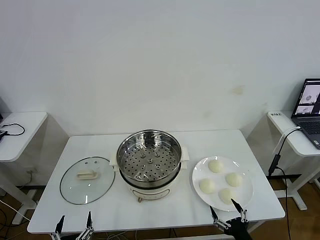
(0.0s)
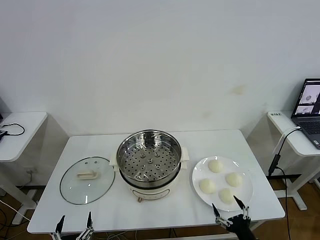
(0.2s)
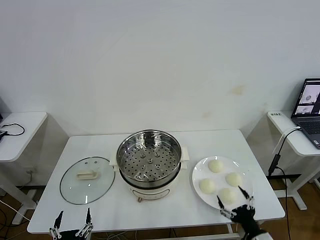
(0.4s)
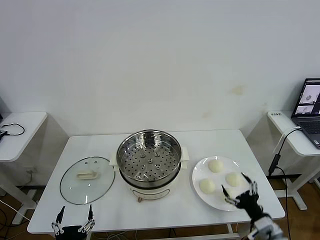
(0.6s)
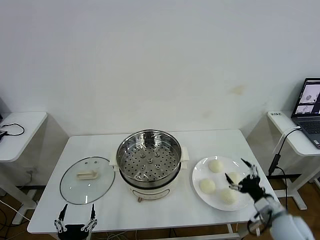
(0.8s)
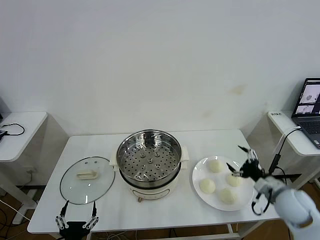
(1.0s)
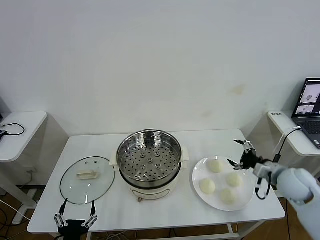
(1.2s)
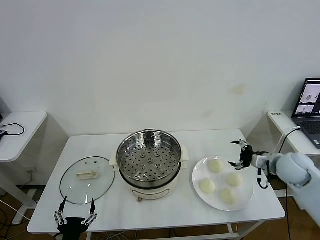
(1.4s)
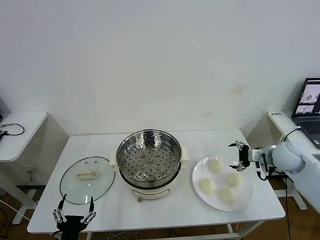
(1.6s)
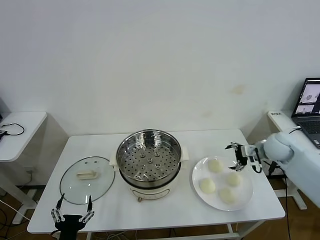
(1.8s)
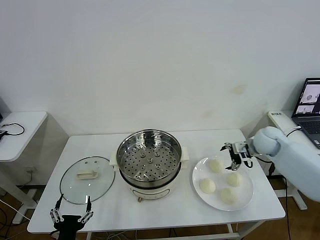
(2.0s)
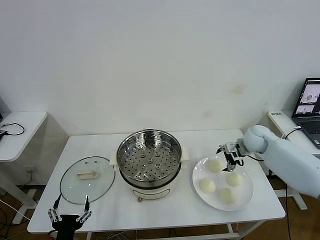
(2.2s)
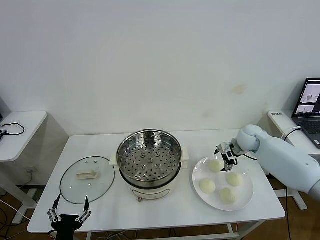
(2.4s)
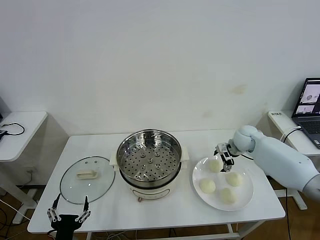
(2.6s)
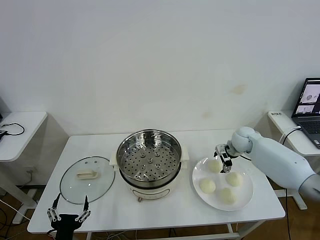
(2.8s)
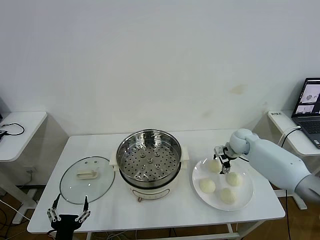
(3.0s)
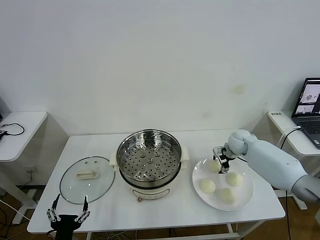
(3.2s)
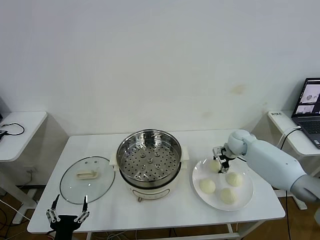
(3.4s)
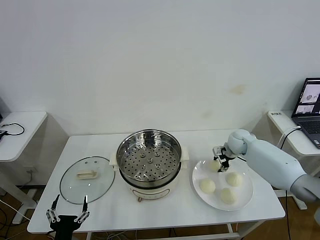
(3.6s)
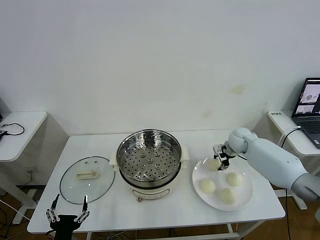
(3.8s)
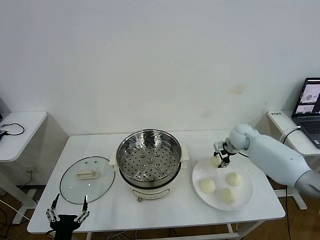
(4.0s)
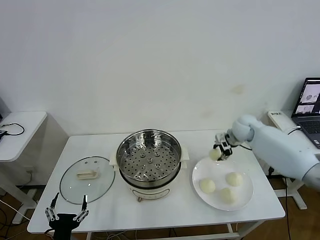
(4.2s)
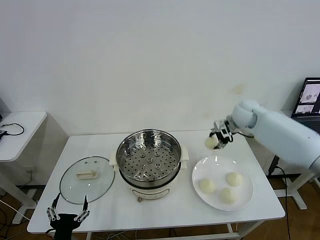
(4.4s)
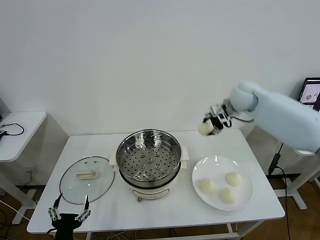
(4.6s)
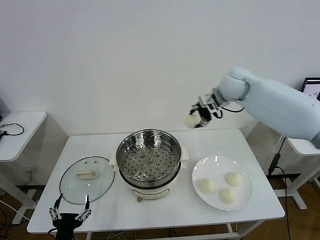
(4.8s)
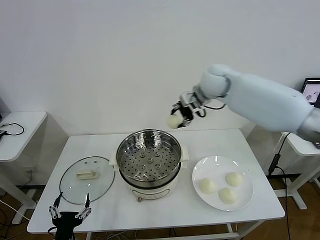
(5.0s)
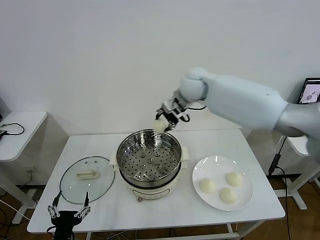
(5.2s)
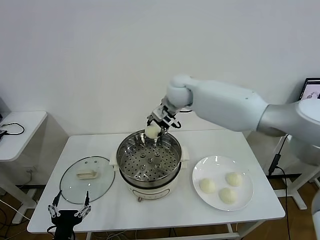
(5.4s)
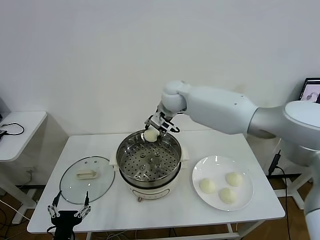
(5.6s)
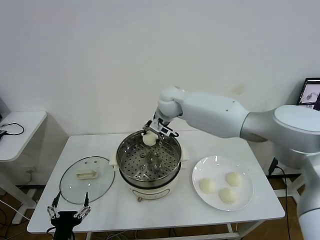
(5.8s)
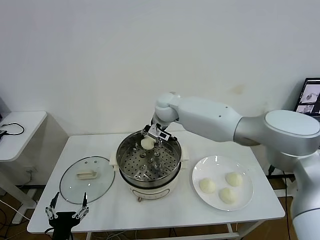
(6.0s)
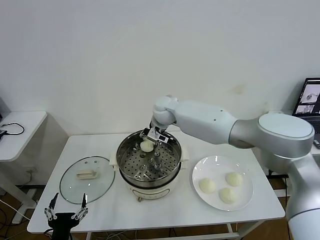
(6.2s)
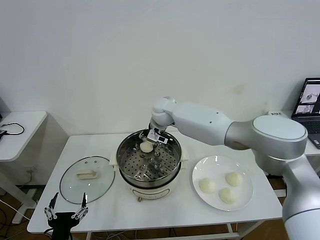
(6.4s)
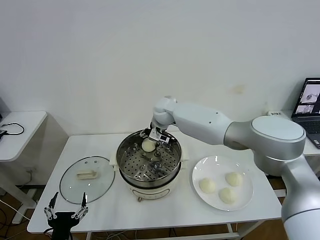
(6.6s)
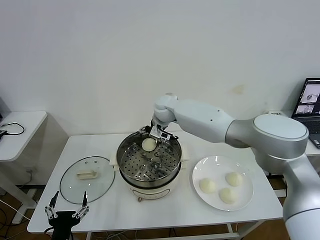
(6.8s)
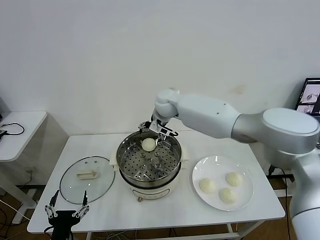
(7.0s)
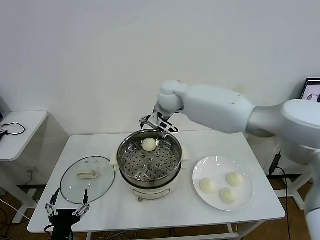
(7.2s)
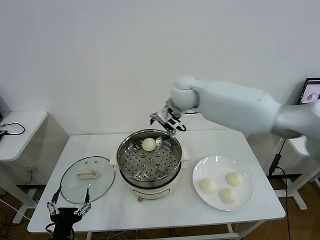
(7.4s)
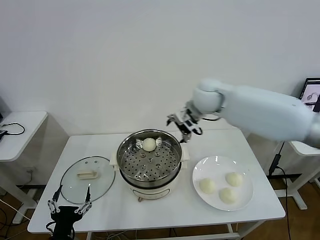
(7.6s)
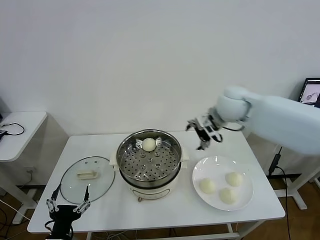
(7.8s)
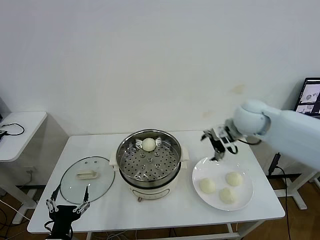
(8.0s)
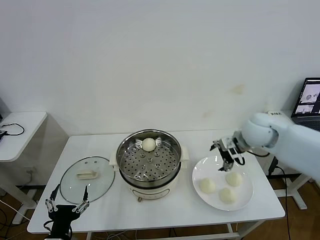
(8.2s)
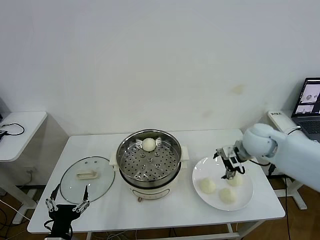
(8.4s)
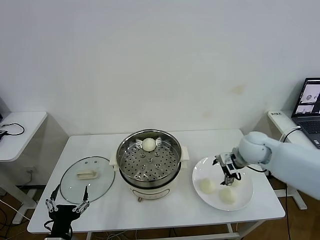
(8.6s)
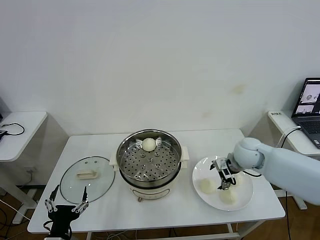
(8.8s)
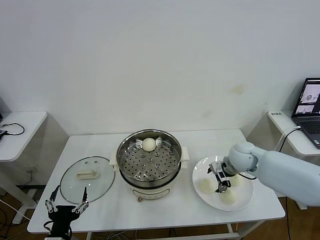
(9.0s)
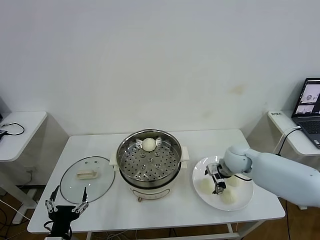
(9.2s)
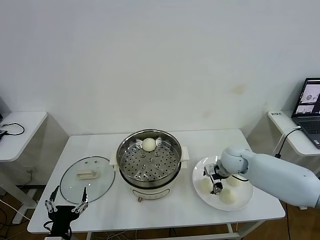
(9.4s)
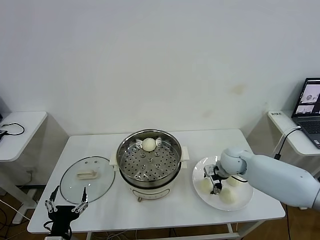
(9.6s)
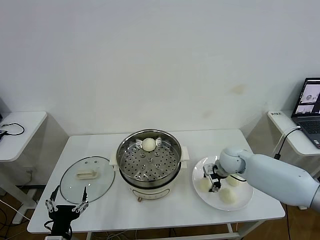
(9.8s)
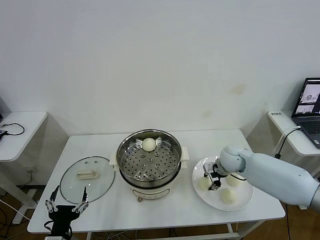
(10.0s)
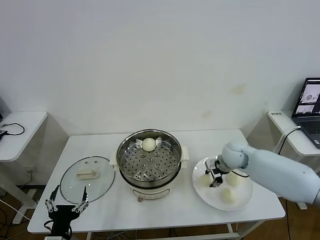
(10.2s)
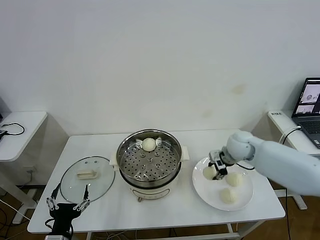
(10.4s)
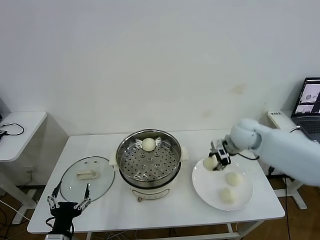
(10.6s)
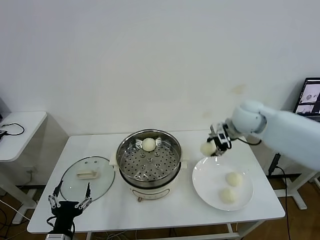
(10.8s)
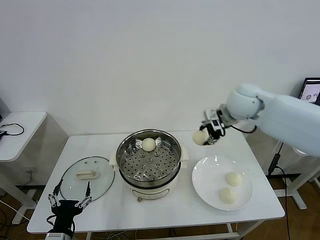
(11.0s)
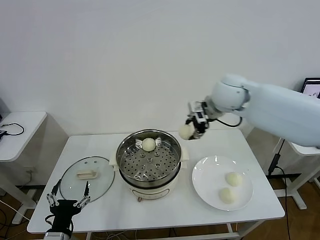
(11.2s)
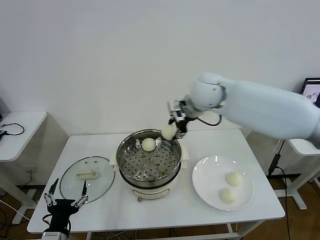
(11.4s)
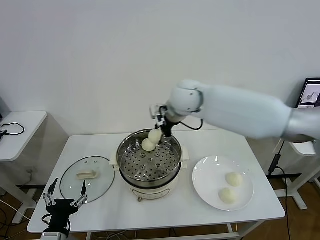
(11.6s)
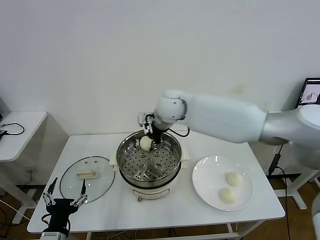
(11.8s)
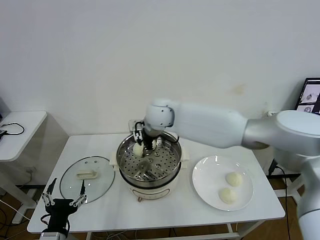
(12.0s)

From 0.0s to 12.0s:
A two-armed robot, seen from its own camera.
Task of the whole recording: take steamed baozi put them in steamer then cover it.
Step, from 0.0s to 3.4s: Grasp the baozi in the plate with right gripper.
Step, from 3.6s to 6.6s: Place the baozi on the steamer with right gripper.
Step, from 7.0s to 9.8s: Grasp the baozi in the plate with right gripper.
From 1.6s to 3.0s: The right gripper goes some 15 cm forward, to the left and downward.
From 3.0s to 4.4s: The right gripper moves upward, approximately 20 cm, and closes its fingers.
From 4.4s to 6.0s: The right gripper is displaced to the left by some 25 cm.
From 6.0s to 7.6s: The right gripper heads to the right, upward and backward, covering approximately 20 cm, and opens.
From 7.6s to 9.0s: The right gripper shifts about 20 cm downward and to the right.
From 9.0s to 10.4s: The right gripper shifts by about 5 cm, and closes.
From 10.4s to 12.0s: The right gripper shifts about 30 cm to the left.

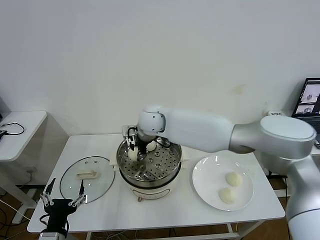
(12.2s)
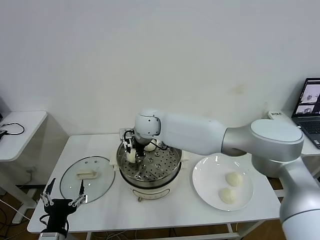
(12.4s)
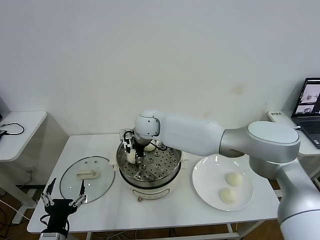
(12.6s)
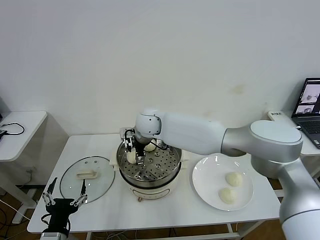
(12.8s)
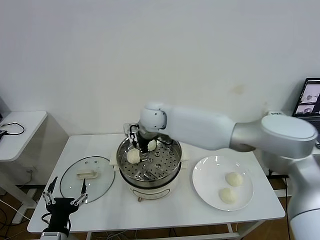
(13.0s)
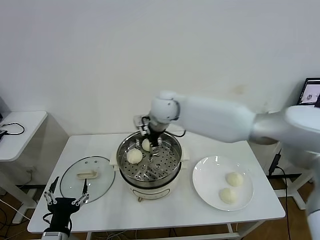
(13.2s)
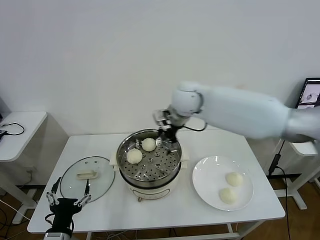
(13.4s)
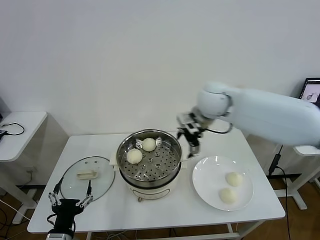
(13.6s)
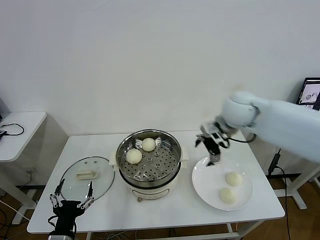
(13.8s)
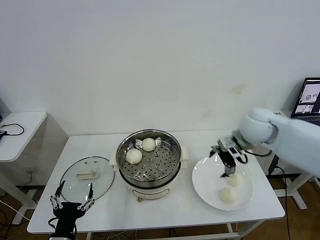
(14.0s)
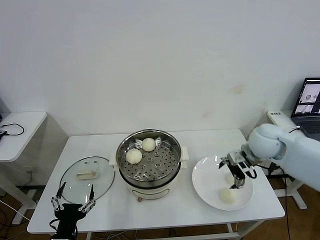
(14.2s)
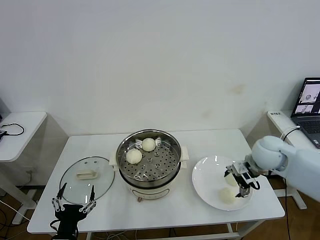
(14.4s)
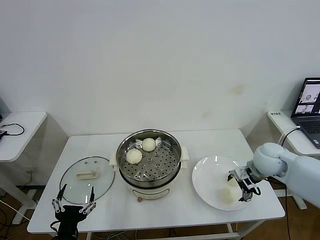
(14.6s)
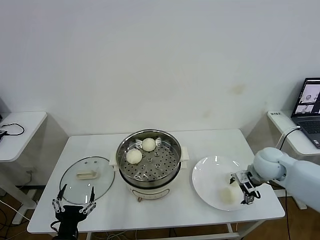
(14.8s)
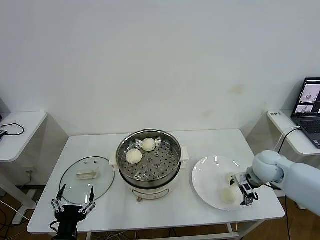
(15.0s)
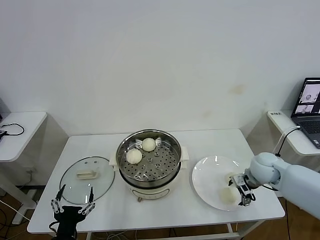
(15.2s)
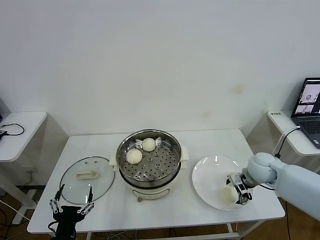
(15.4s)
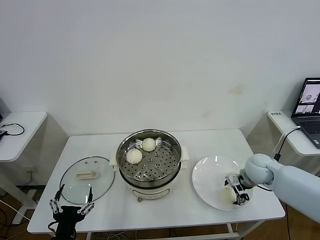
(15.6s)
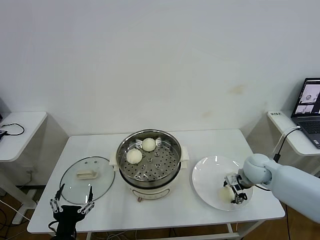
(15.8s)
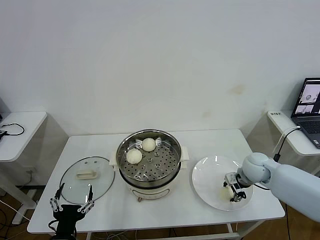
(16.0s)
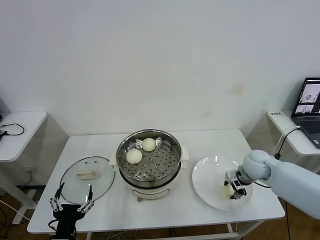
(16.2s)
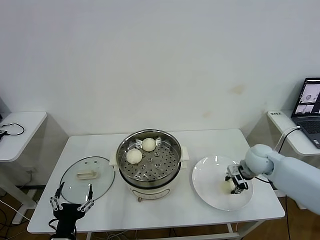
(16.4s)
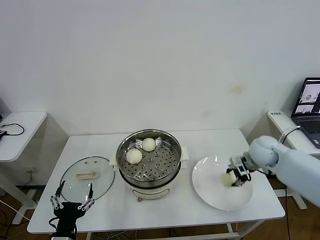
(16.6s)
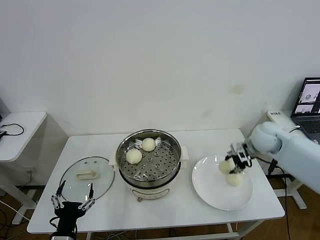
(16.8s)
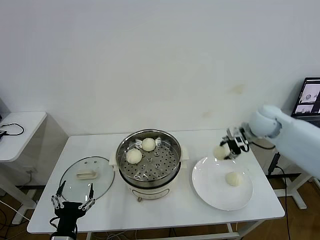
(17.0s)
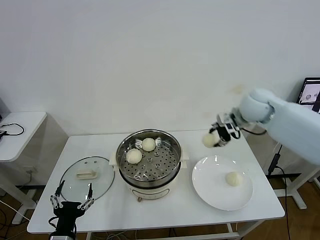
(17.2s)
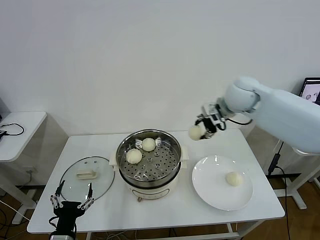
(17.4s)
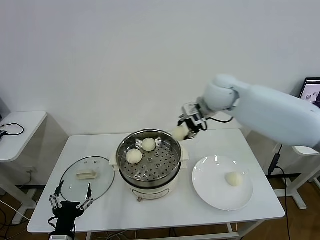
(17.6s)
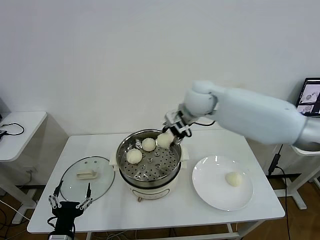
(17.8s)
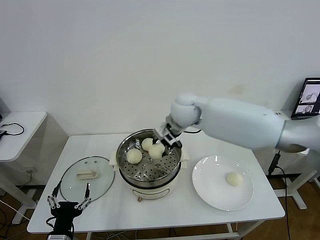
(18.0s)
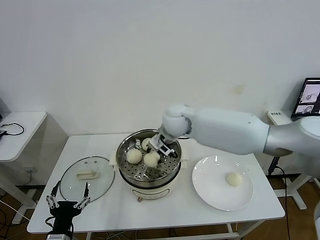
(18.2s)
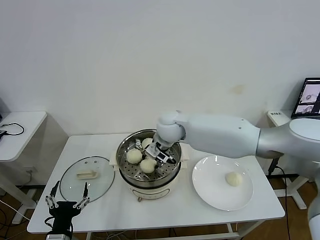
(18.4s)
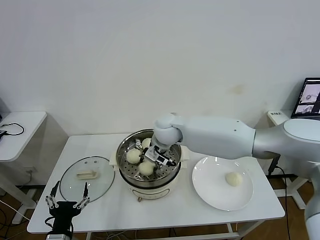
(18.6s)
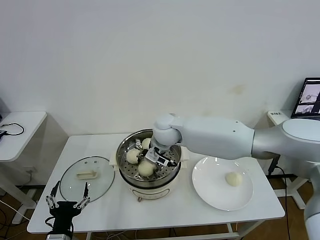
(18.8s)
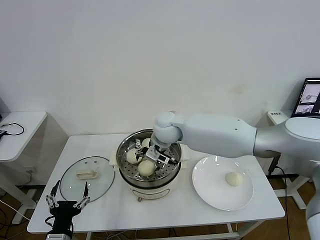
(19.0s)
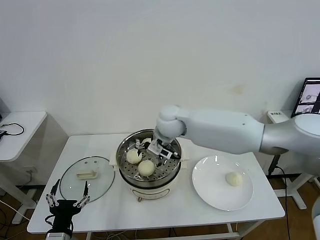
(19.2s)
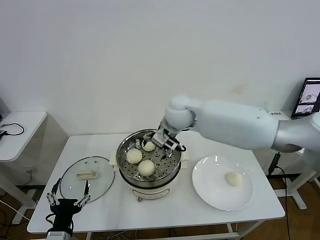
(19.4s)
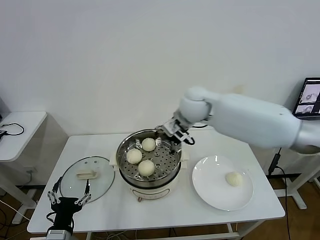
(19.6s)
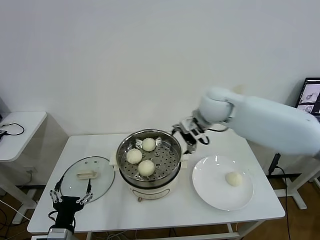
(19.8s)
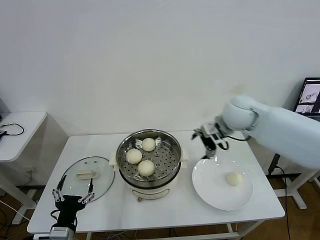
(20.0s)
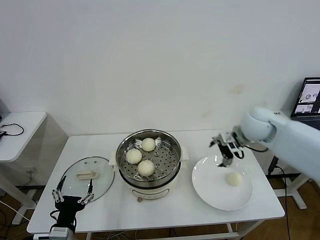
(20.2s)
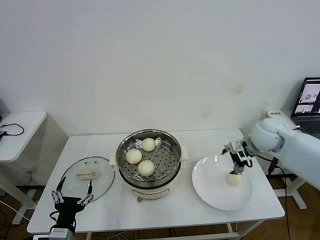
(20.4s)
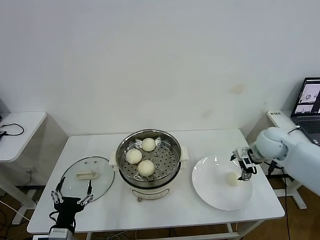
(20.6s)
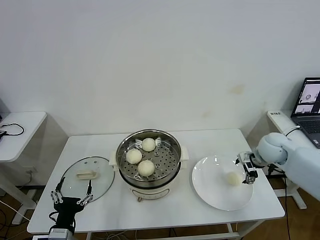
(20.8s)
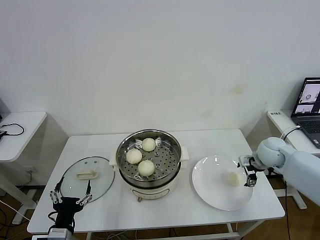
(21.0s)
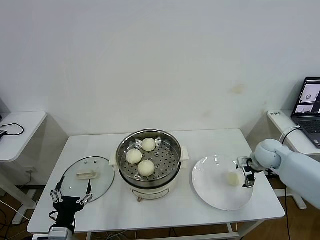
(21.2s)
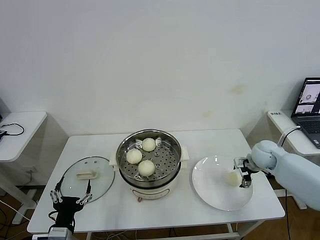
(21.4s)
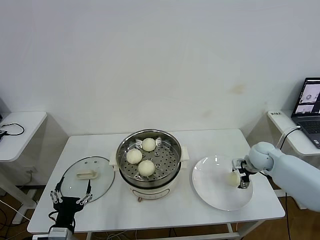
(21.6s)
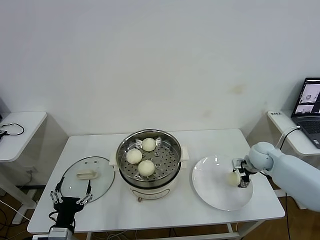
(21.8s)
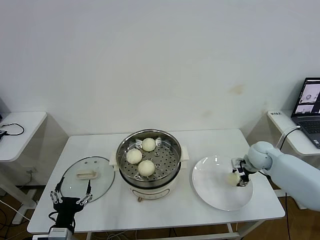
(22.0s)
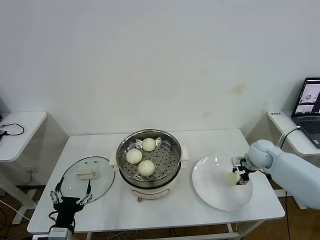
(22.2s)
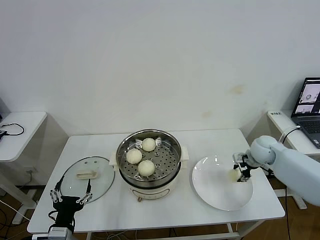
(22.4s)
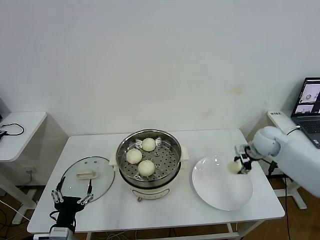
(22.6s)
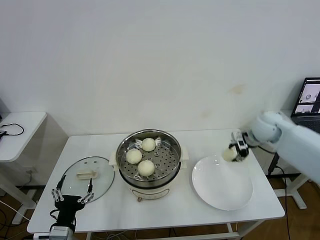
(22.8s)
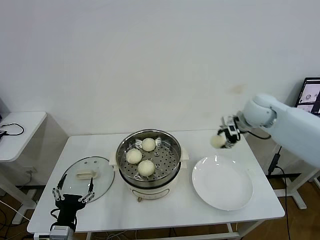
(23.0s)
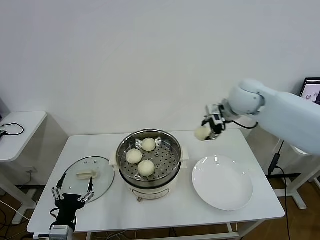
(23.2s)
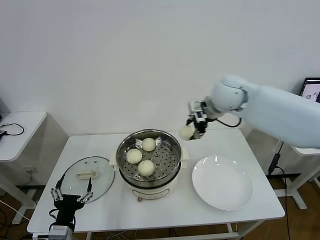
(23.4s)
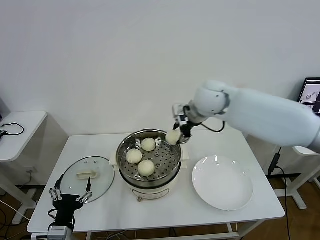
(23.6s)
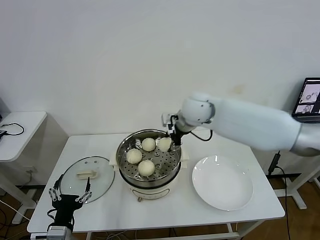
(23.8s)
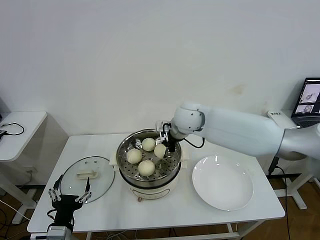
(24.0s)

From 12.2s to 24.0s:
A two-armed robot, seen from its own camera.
Task of the whole recording: take steamed baozi put them in steamer then cover it.
Step, from 13.0s to 16.0s: Grasp the baozi in the plate with right gripper.
Step, from 16.2s to 18.8s: Place the baozi on the steamer with right gripper.
Step, from 19.0s to 22.0s: Grasp the baozi in the plate with right gripper.
From 12.2s to 13.6s: The right gripper travels to the right and upward by some 25 cm, and opens up.
From 13.6s to 15.2s: The right gripper goes roughly 30 cm downward and to the right.
From 15.2s to 16.6s: The right gripper moves about 5 cm, and closes its fingers.
From 16.6s to 18.2s: The right gripper heads to the left, covering approximately 30 cm.
From 18.2s to 19.6s: The right gripper heads upward and to the right, covering about 10 cm, and opens up.
From 19.6s to 21.0s: The right gripper travels to the right and downward by some 35 cm.
From 21.0s to 22.6s: The right gripper closes.
From 22.6s to 24.0s: The right gripper heads to the left, covering some 30 cm.
